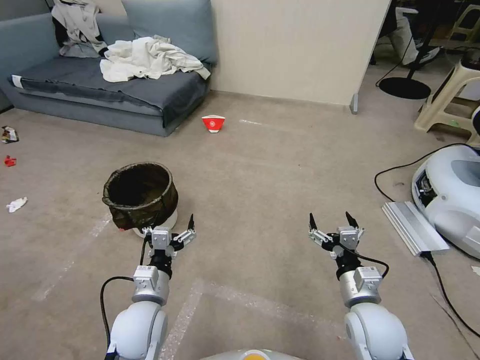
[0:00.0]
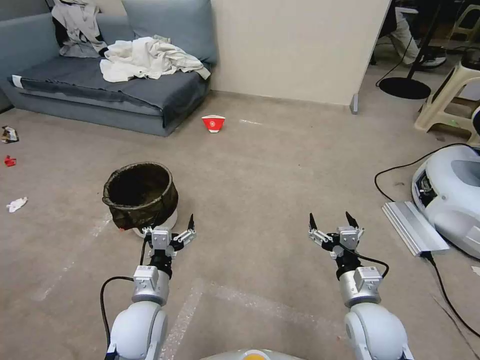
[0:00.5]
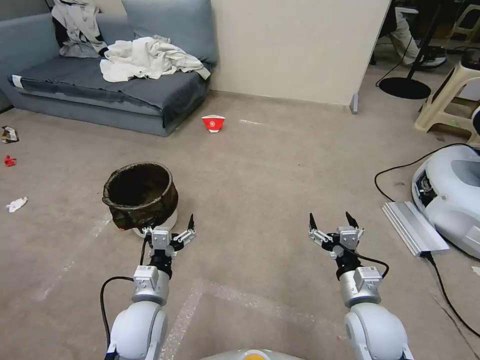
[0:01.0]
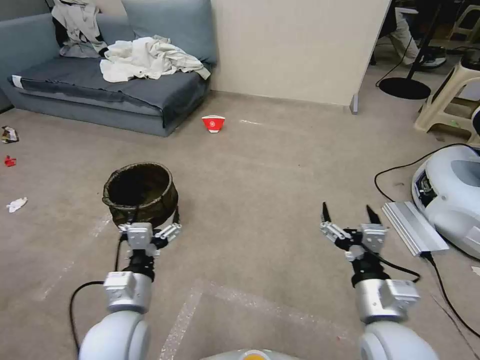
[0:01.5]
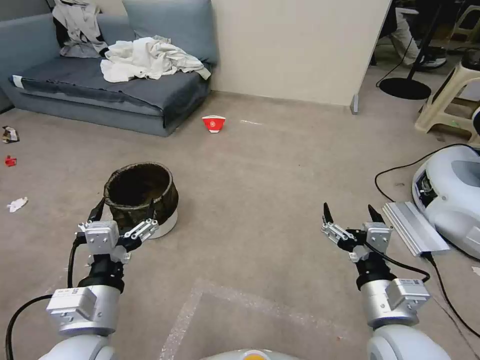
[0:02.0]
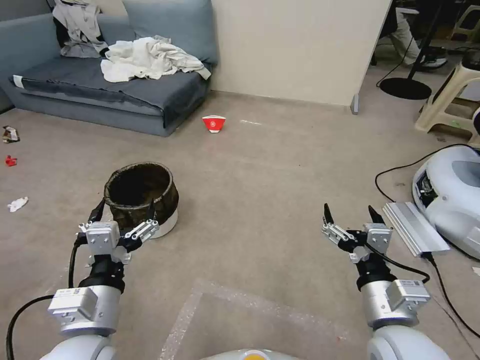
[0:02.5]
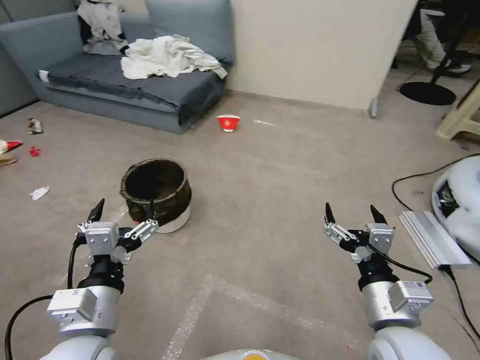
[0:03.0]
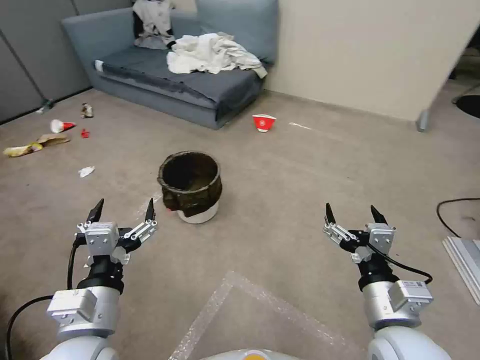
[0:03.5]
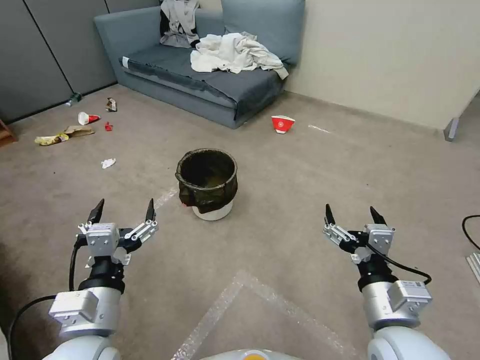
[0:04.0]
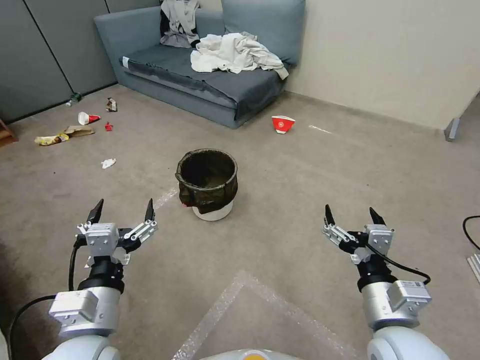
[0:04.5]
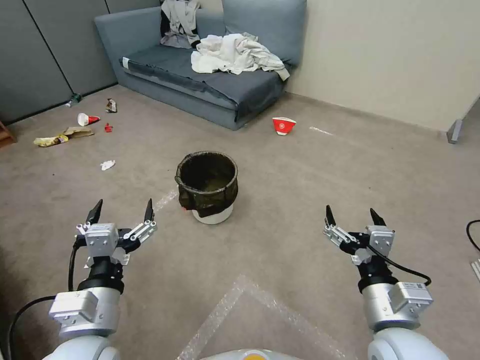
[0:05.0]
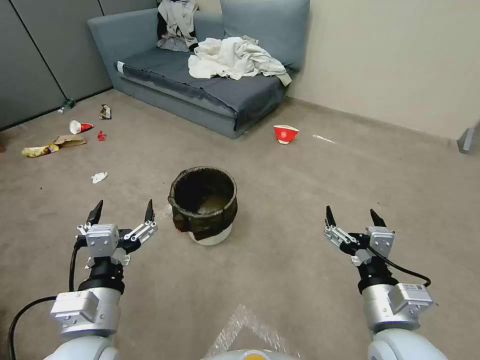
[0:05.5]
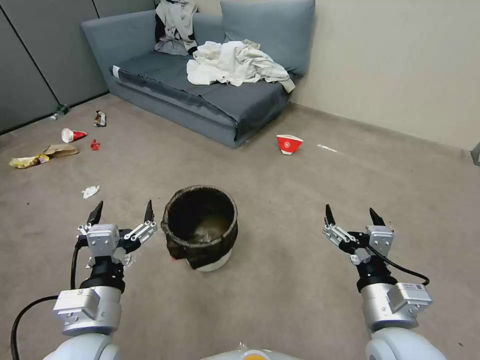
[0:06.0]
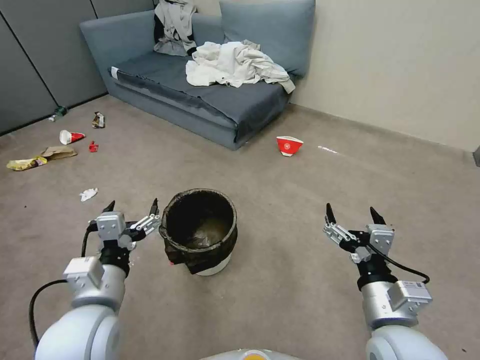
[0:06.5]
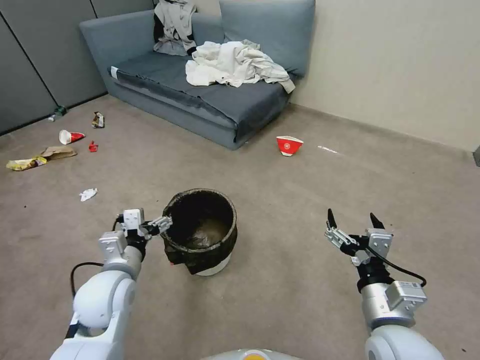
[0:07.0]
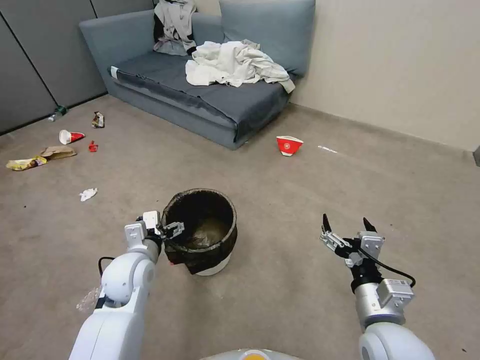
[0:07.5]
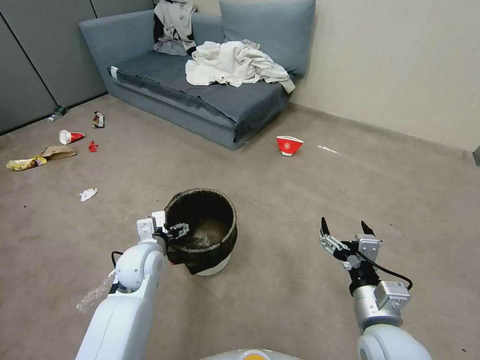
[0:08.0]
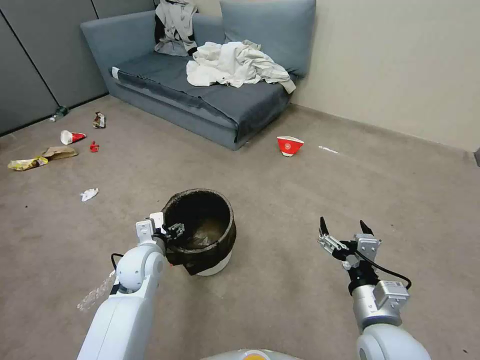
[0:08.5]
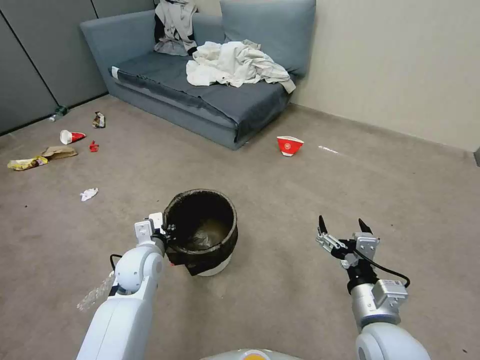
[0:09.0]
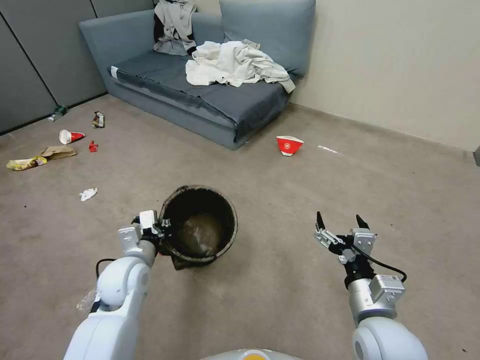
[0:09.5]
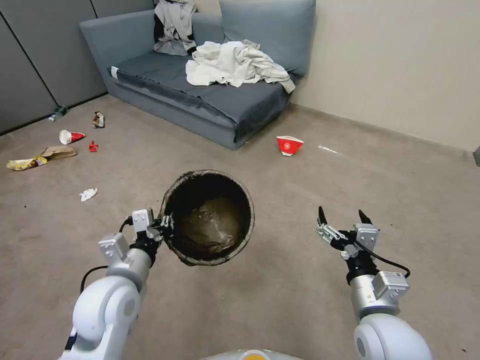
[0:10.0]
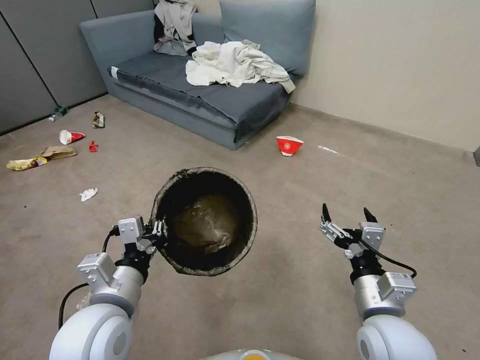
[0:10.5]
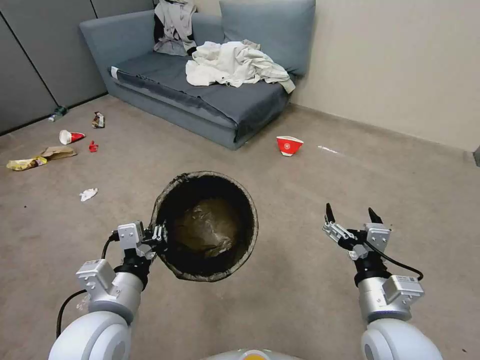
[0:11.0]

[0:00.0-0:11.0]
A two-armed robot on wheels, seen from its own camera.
Task of the whole recording: Pick up the trash can from the floor.
0:05.5 to 0:07.5: The left gripper goes about 20 cm forward and downward.
0:07.5 to 0:09.0: The left gripper closes its fingers.
0:09.0 to 0:11.0: The left gripper is displaced backward and upward by some 20 cm.

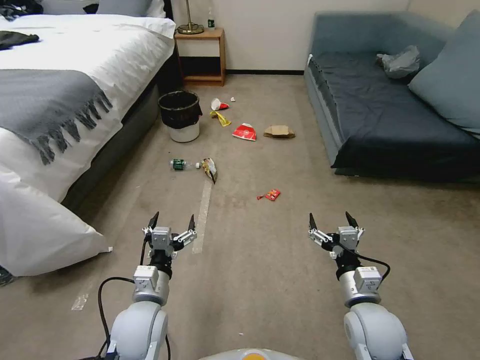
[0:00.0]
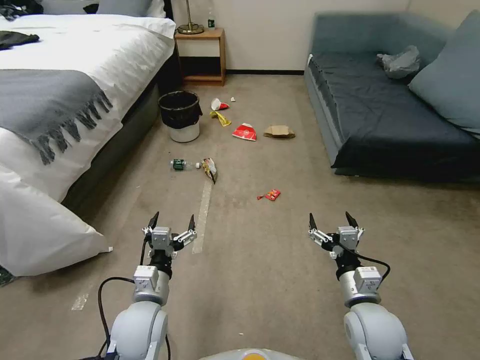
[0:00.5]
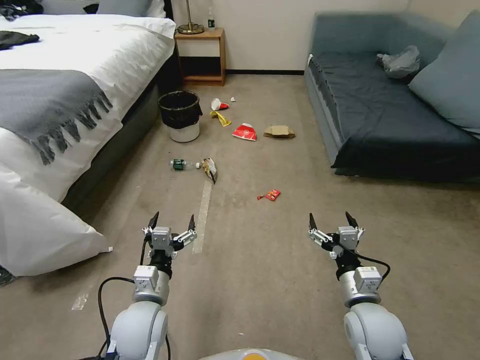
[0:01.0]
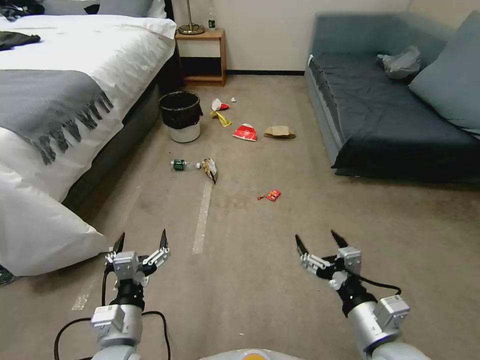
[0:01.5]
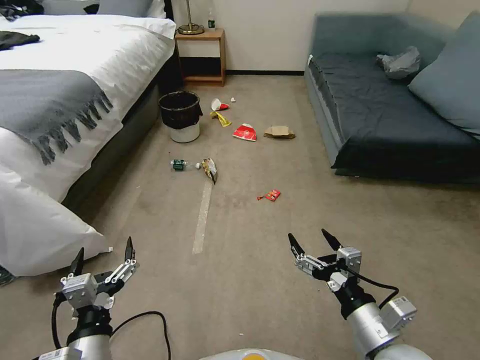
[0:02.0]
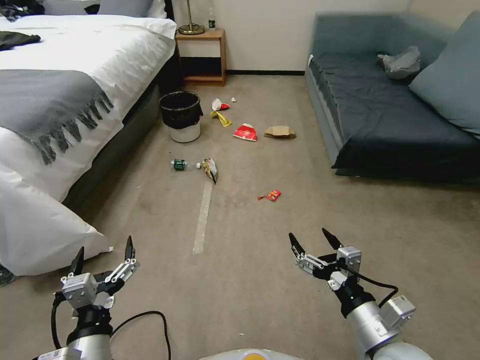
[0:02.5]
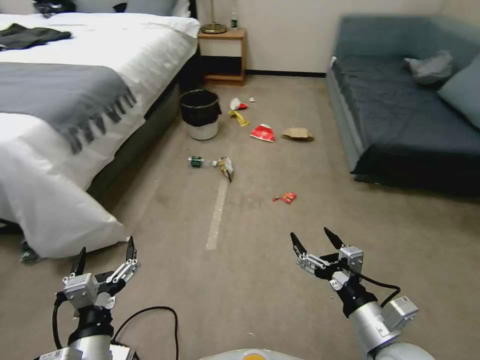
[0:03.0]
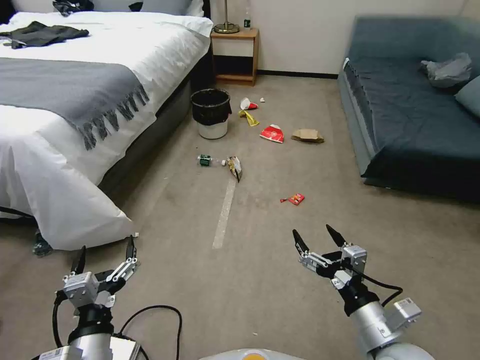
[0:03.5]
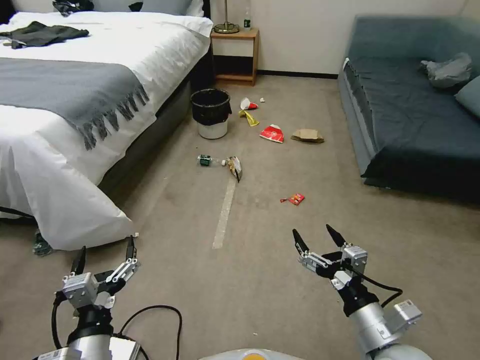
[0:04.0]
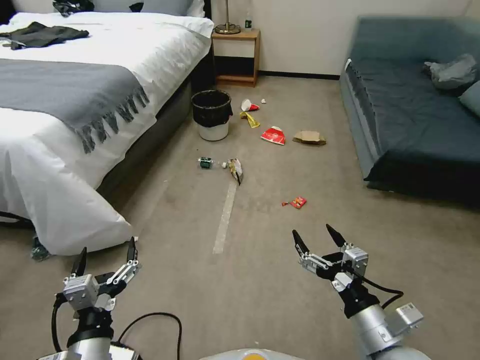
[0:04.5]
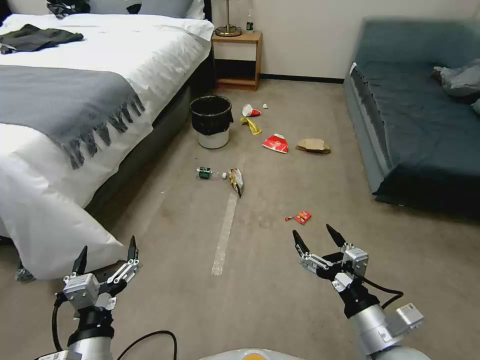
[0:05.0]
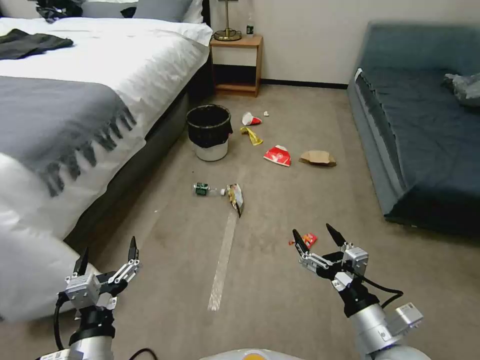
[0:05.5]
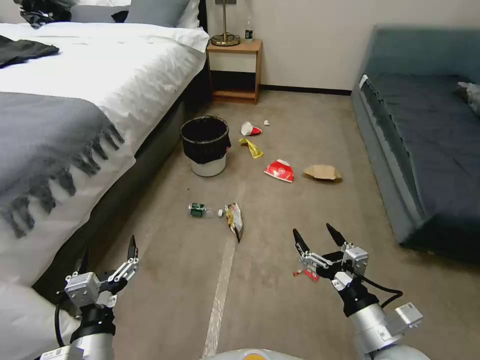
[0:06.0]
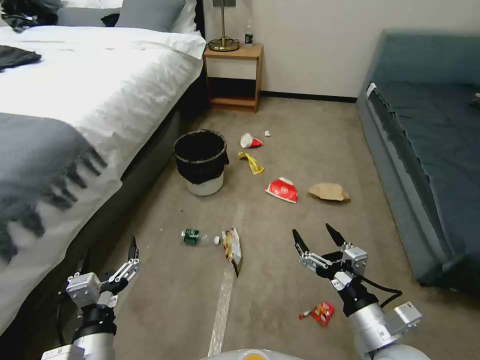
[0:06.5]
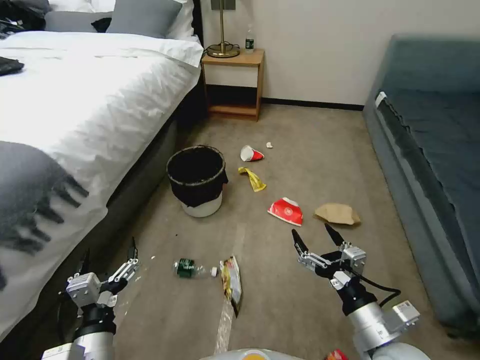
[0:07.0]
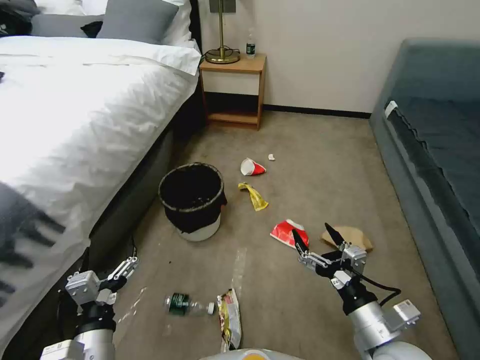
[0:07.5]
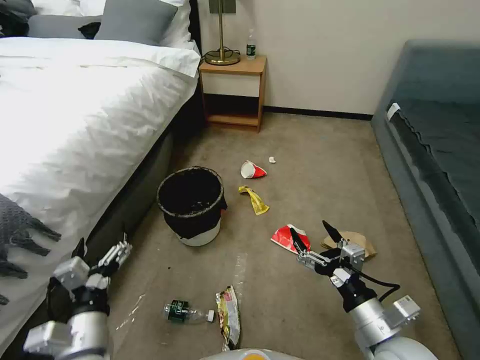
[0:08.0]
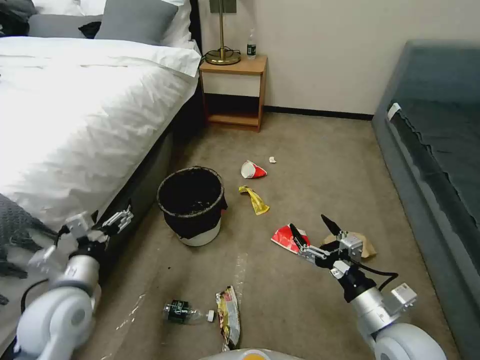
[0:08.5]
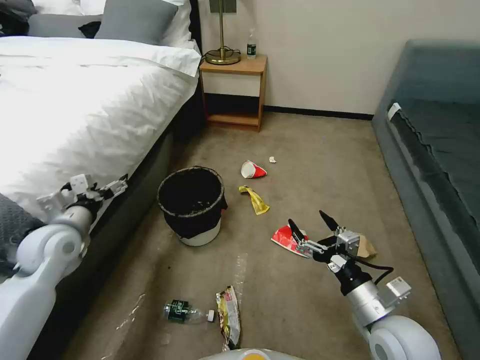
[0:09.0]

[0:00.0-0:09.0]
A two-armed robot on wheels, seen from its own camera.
Task of the whole recording: Pick up the trash can from the floor.
0:07.0 to 0:09.0: The left gripper goes roughly 25 cm forward and to the left.

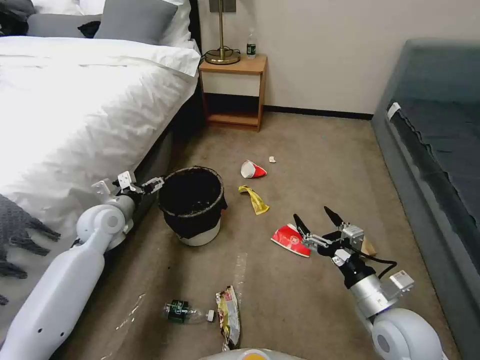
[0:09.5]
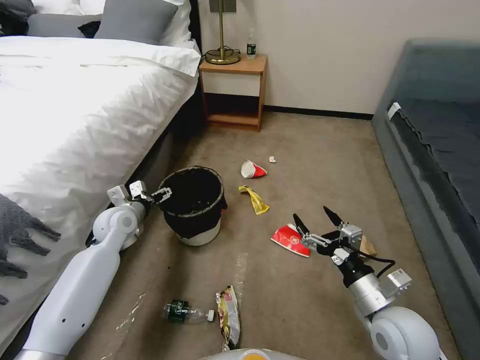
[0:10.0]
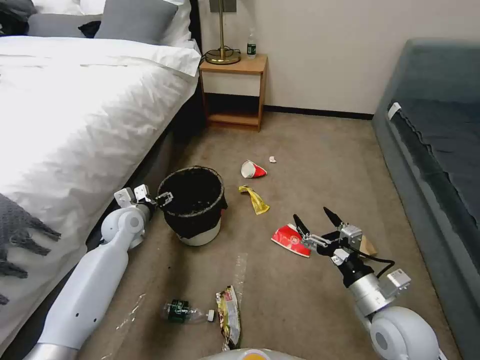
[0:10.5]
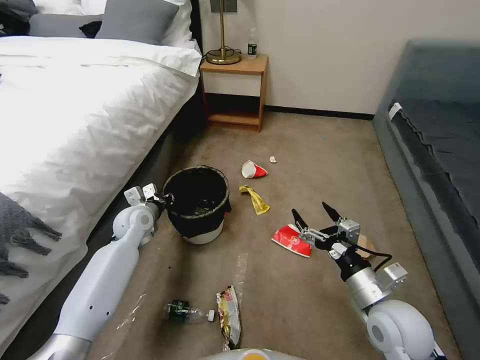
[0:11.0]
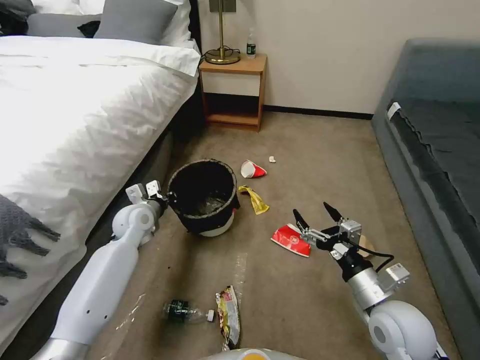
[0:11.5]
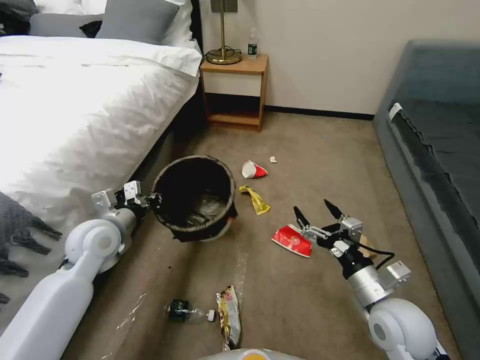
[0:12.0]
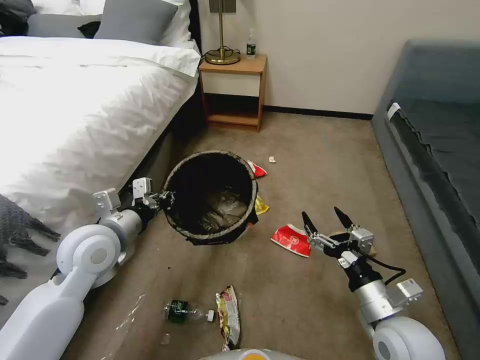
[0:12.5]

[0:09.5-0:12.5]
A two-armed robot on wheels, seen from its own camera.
Task of the whole recording: Pick up the trash can from the floor.
0:09.5 to 0:11.0: The left gripper shifts roughly 5 cm downward, and closes.
0:11.0 to 0:12.5: The left gripper shifts some 20 cm backward and upward.

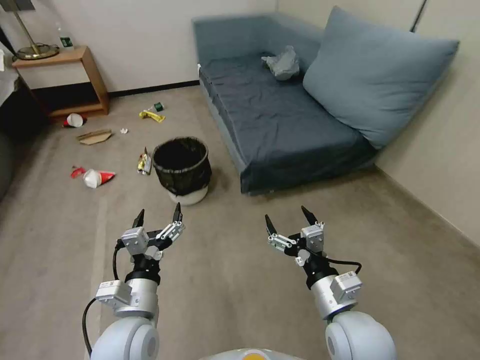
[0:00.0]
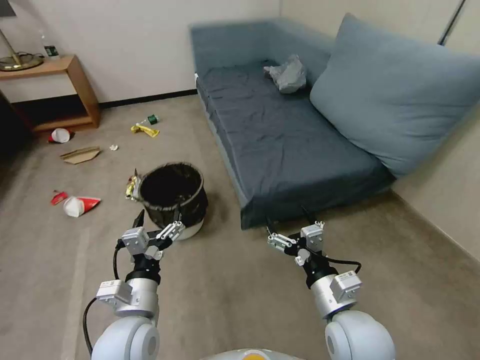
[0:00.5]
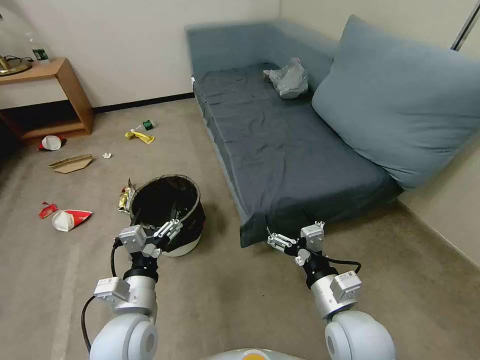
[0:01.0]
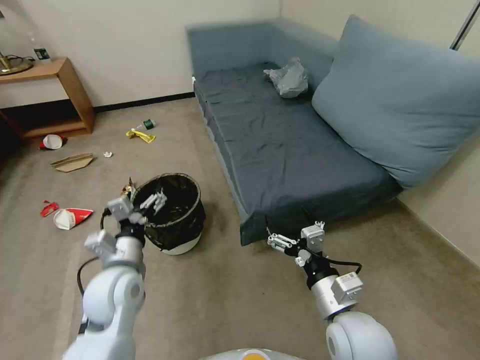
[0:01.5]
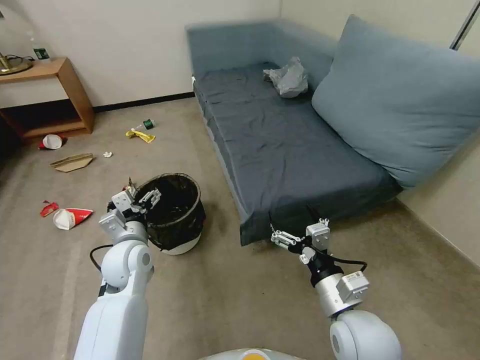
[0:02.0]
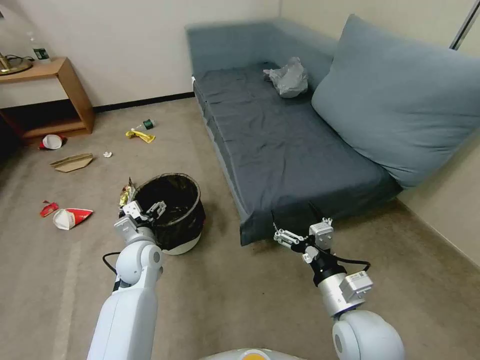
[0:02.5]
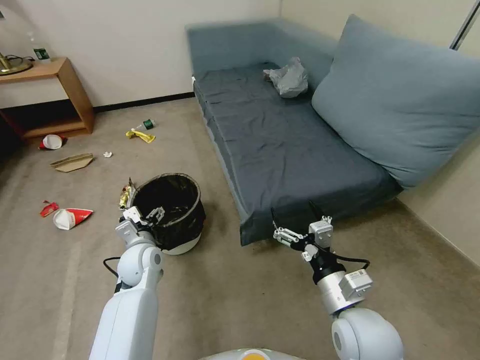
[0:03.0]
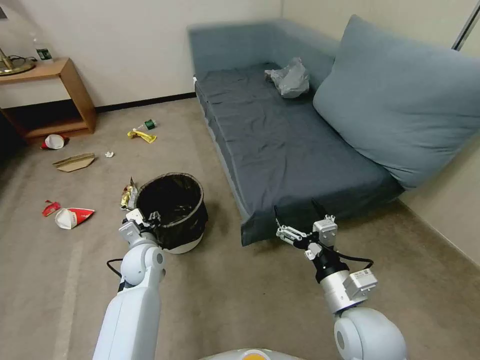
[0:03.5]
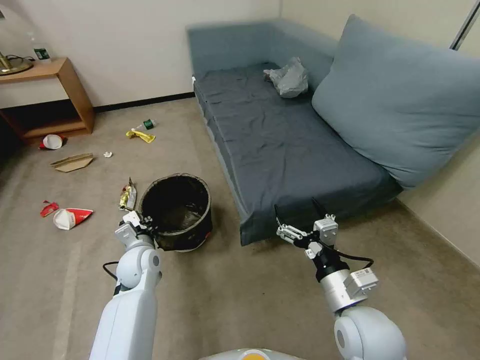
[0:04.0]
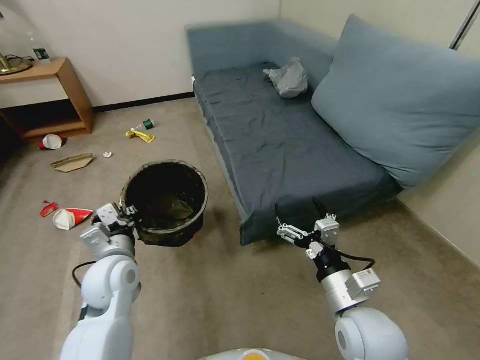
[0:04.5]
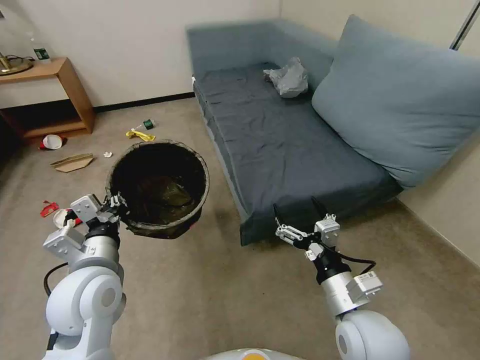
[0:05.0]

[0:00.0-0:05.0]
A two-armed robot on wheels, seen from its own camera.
Task of the whole recording: Pick up the trash can from the floor.
0:00.0 to 0:02.5: The left gripper moves forward, about 15 cm.
0:02.5 to 0:05.0: The left gripper shifts some 20 cm upward and backward, and closes.
